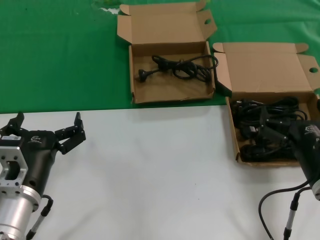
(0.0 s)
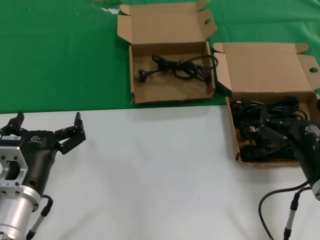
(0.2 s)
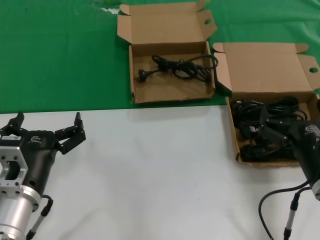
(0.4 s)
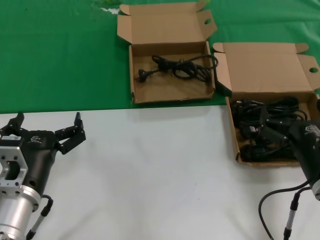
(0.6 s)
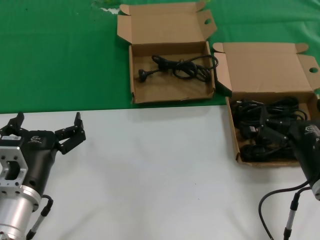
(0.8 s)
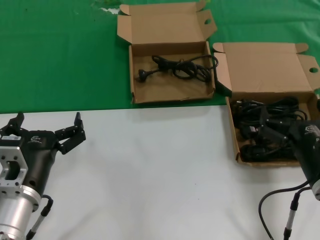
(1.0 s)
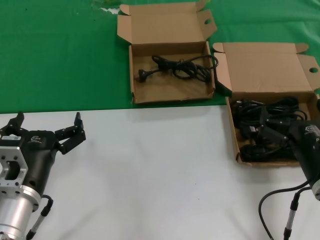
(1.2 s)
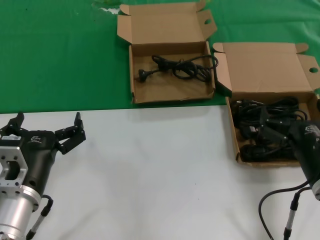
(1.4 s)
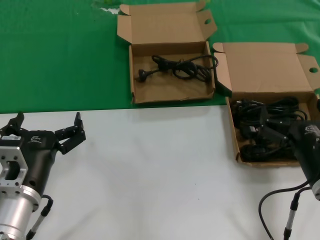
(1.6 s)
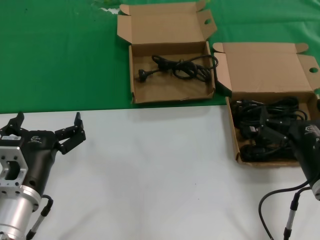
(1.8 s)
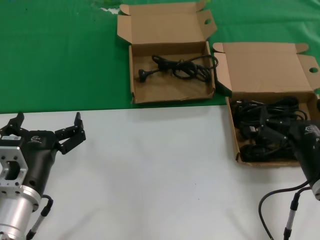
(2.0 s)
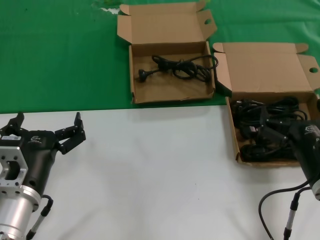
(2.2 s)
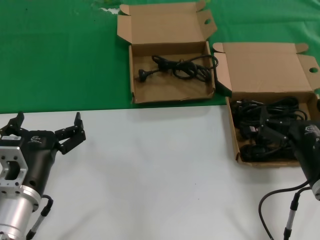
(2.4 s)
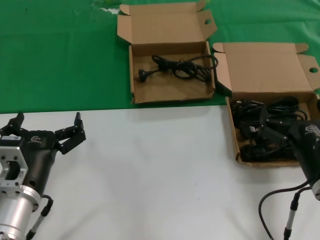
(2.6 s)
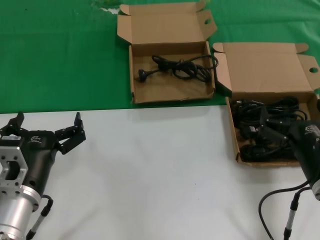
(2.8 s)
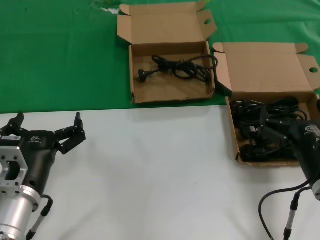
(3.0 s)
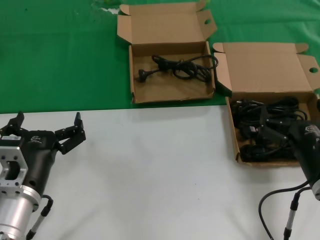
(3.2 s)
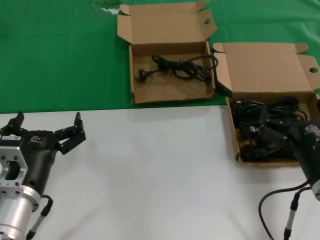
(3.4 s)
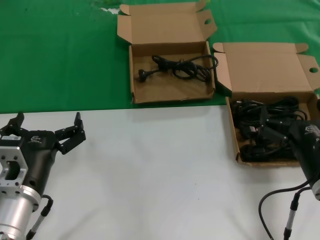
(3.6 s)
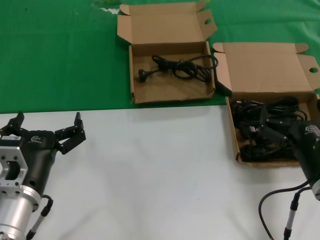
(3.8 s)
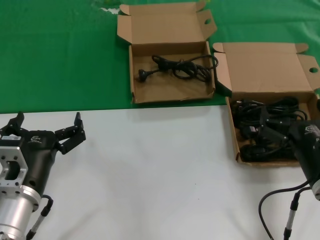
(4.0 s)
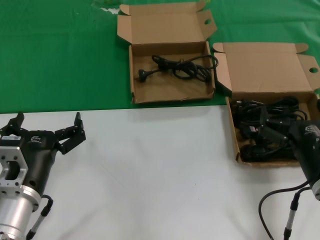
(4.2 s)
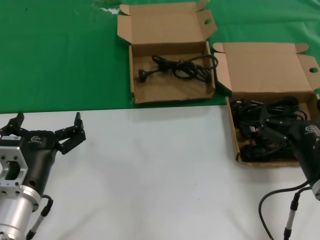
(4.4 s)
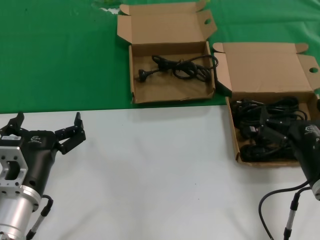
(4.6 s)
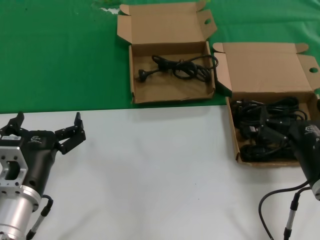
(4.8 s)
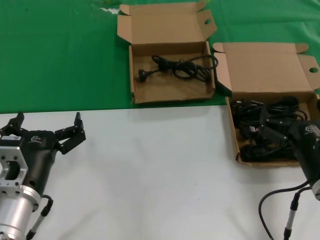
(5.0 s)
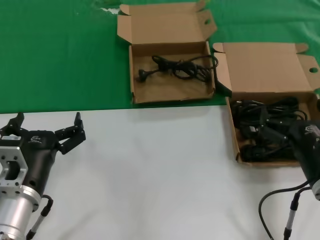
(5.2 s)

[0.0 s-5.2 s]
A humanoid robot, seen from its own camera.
Task of the whole recording: take the parts from the box containing them and put them into an empty box.
0.0 to 5.2 s: Both hands stay about where they are.
